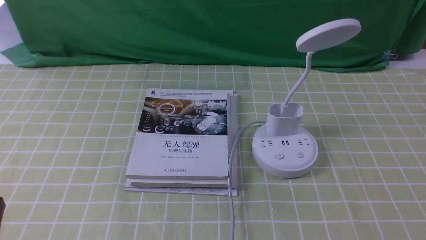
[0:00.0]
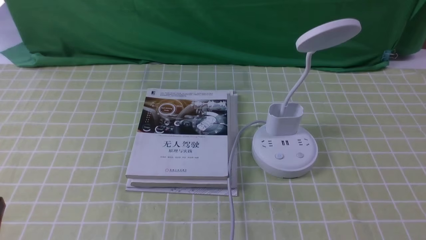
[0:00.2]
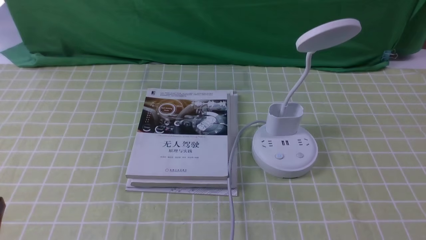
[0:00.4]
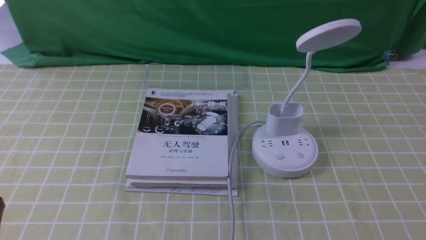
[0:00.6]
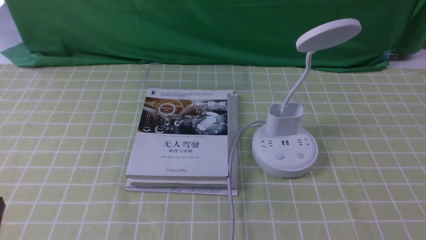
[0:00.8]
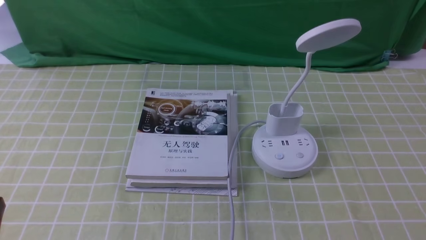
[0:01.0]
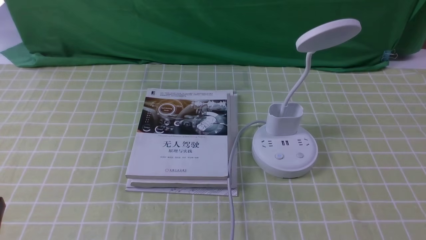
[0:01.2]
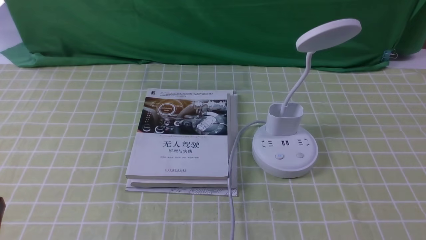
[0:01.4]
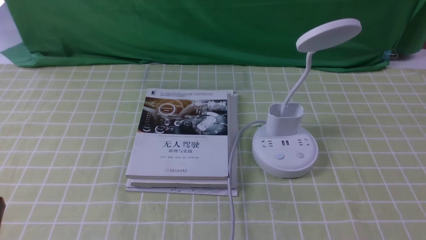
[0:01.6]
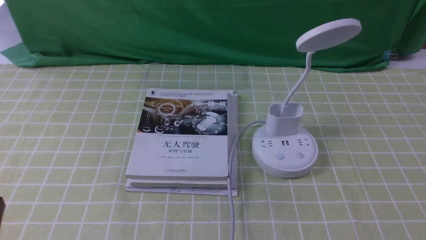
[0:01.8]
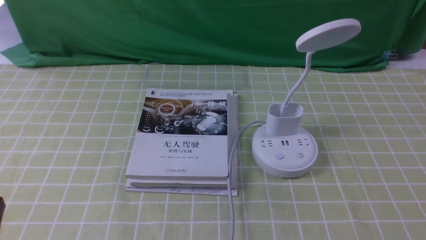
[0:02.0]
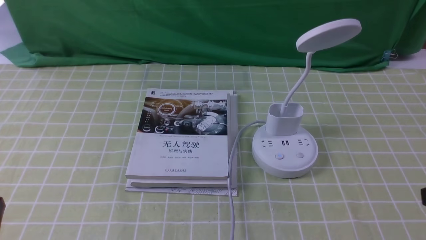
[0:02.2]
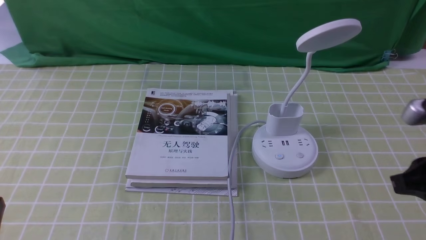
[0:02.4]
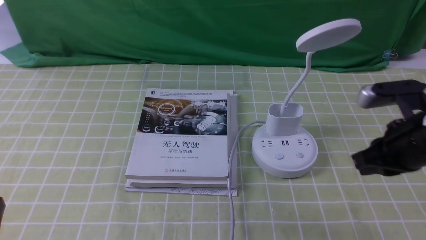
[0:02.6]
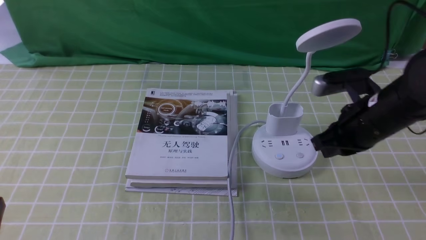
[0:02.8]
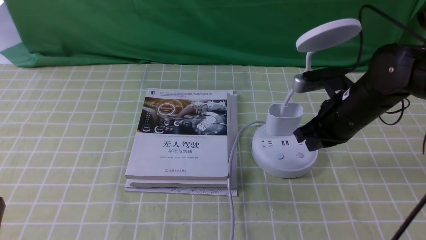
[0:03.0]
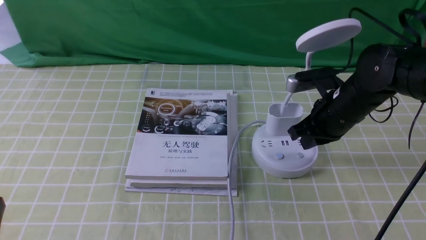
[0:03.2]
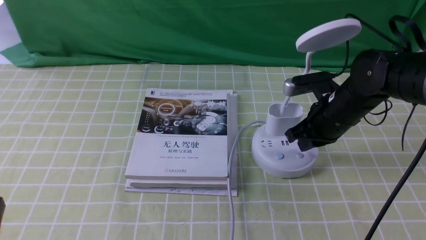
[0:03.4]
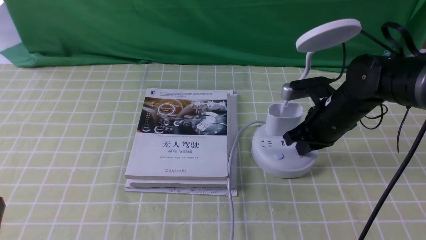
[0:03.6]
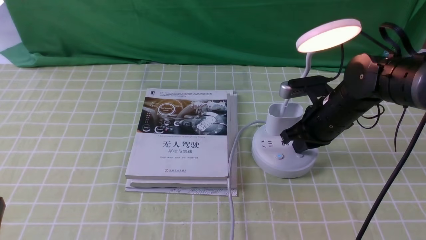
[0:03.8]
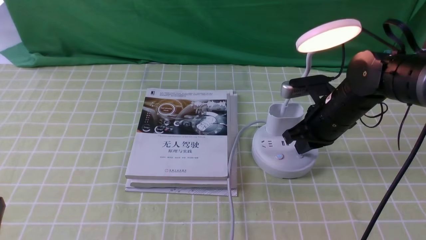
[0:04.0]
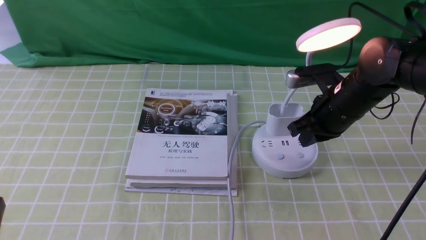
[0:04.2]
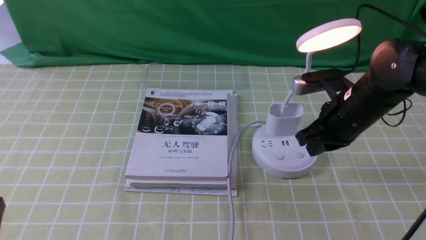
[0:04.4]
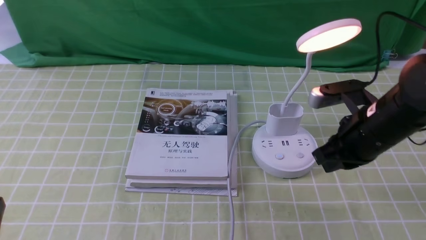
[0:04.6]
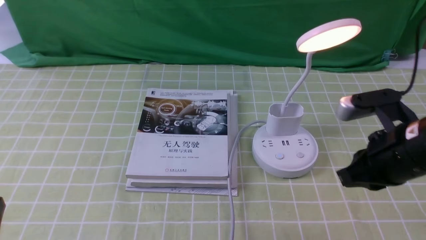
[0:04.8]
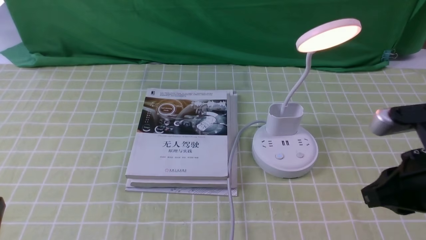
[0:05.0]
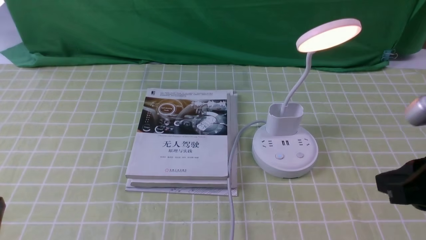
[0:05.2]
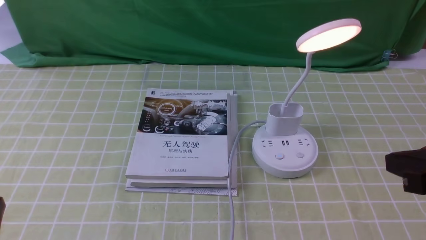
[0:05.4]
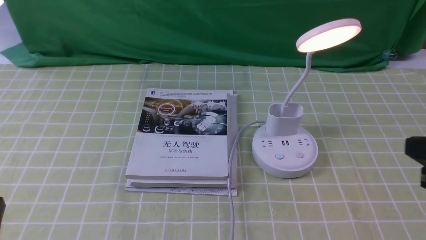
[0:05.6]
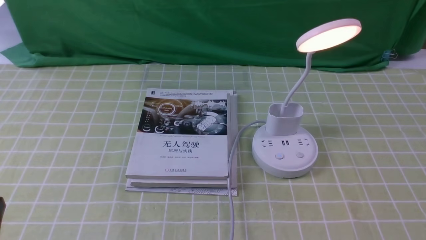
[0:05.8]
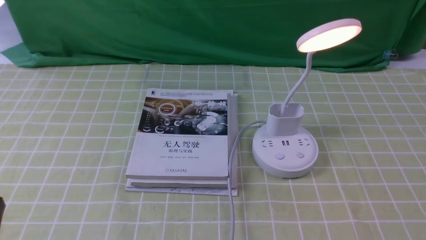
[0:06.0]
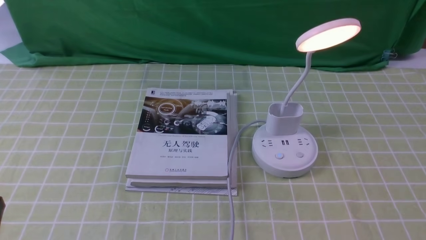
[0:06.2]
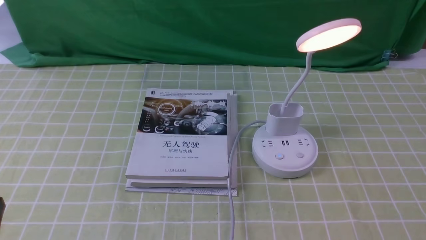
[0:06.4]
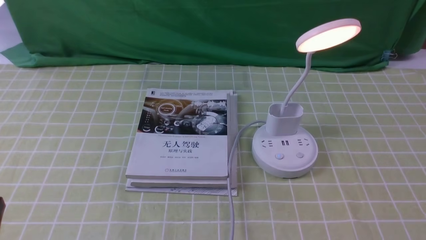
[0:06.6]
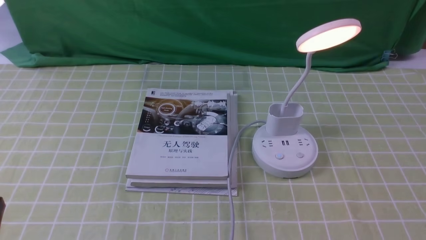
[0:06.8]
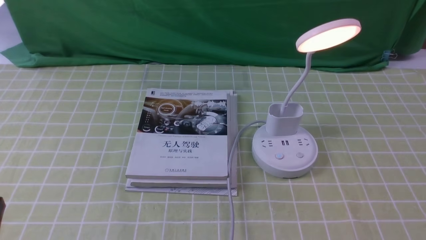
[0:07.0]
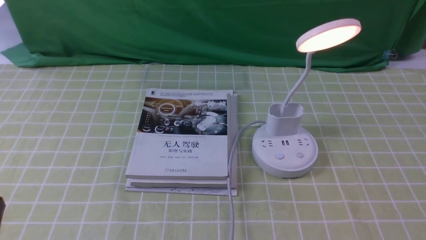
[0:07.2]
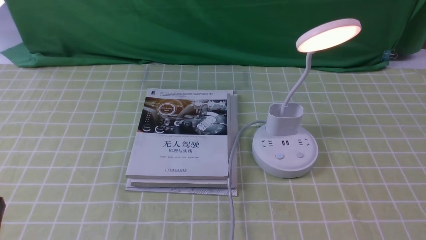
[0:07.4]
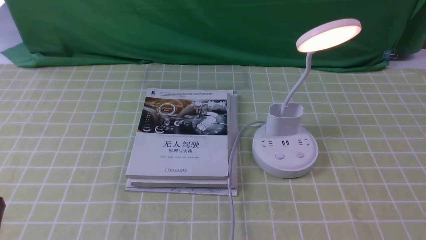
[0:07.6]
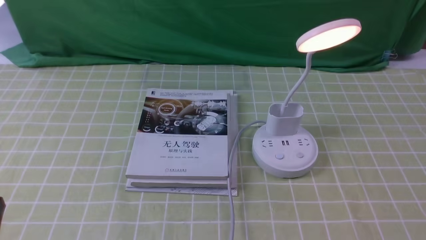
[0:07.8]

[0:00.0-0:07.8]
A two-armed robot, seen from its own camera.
Step, 0:00.0 to 0:04.0: use the right arm to press the button switch on the lamp holder.
0:01.6 to 0:03.2: The right gripper heads forward and to the left, covering about 35 cm, and closes its fingers.
0:03.2 to 0:04.6: The right gripper is displaced backward by roughly 10 cm.
0:04.6 to 0:06.2: The right gripper moves backward and to the right, roughly 25 cm.

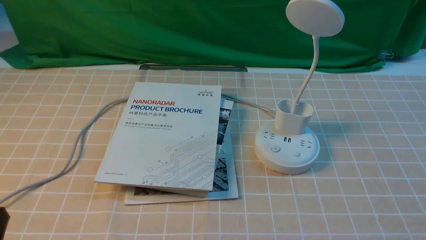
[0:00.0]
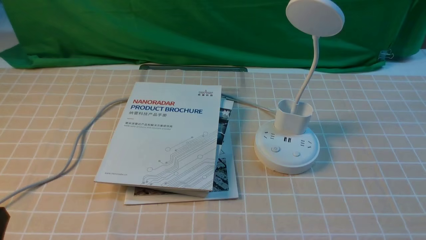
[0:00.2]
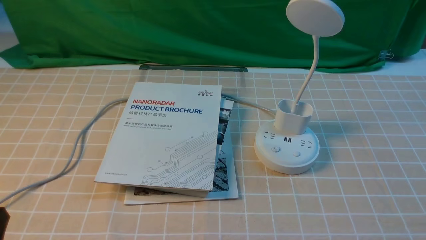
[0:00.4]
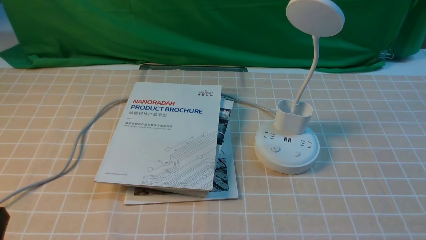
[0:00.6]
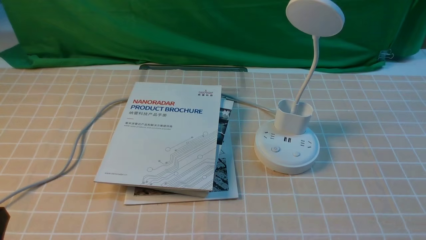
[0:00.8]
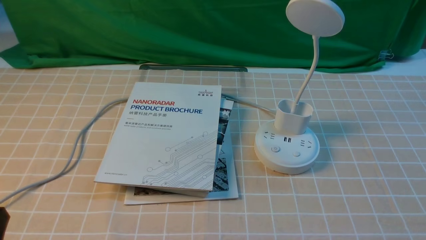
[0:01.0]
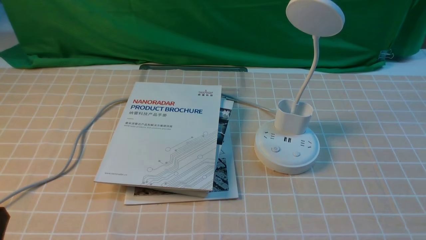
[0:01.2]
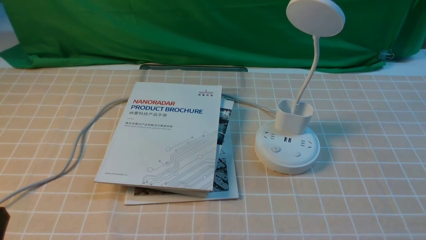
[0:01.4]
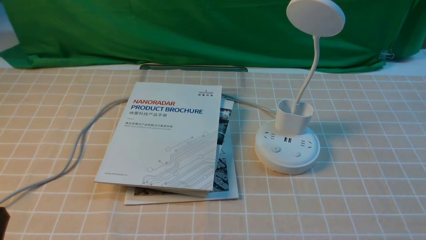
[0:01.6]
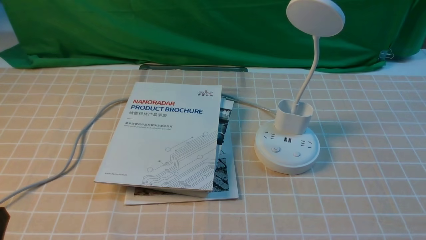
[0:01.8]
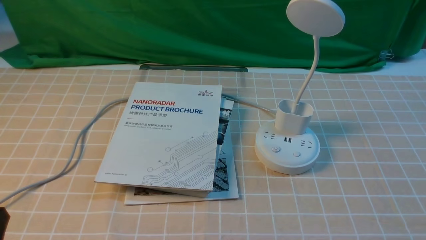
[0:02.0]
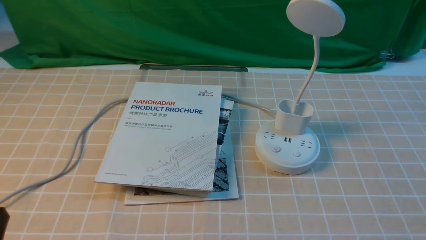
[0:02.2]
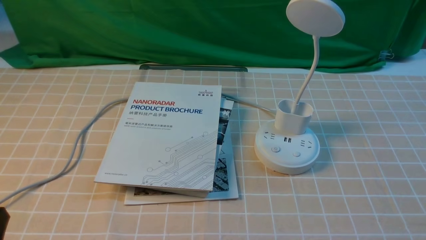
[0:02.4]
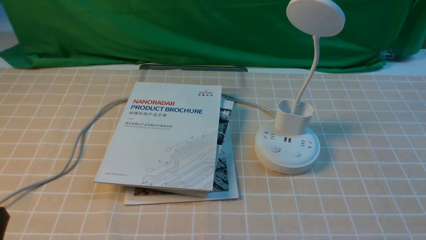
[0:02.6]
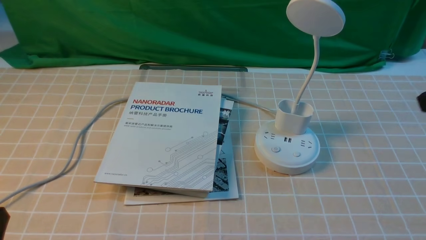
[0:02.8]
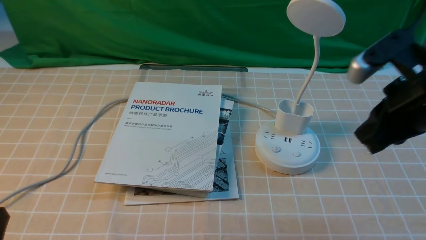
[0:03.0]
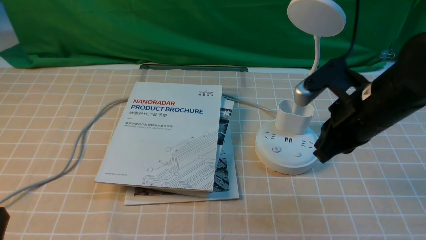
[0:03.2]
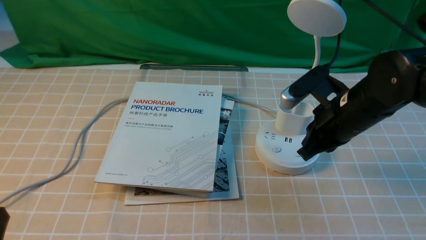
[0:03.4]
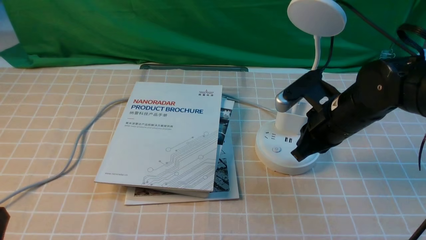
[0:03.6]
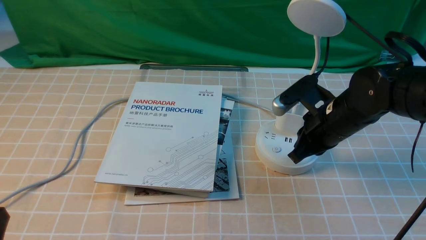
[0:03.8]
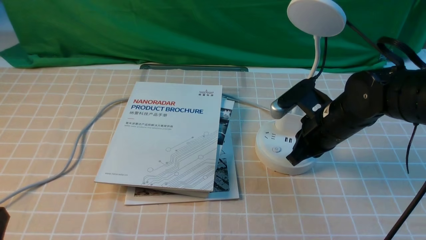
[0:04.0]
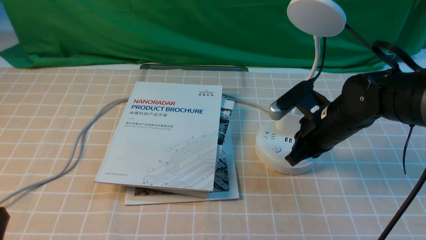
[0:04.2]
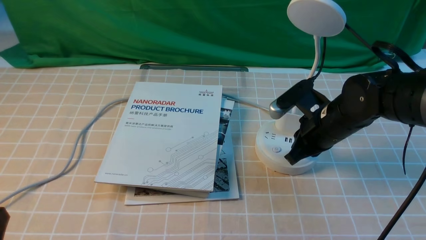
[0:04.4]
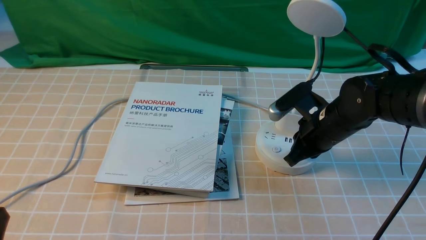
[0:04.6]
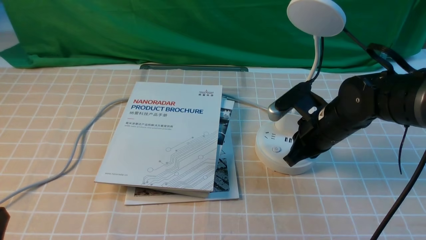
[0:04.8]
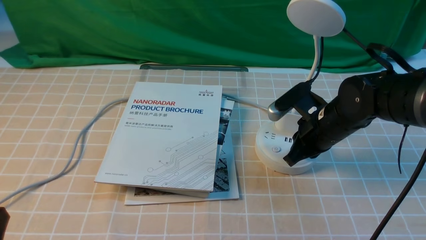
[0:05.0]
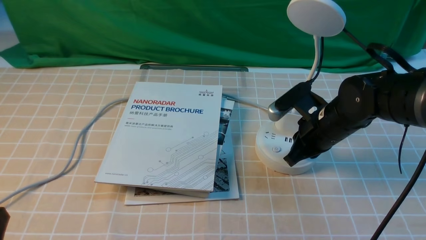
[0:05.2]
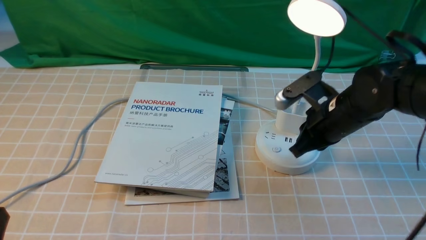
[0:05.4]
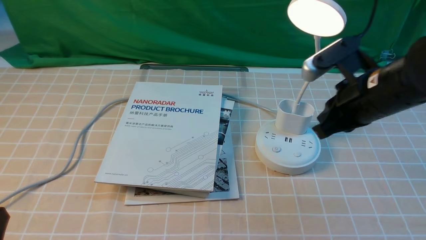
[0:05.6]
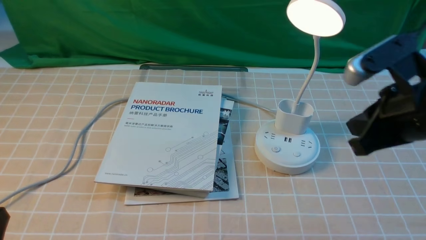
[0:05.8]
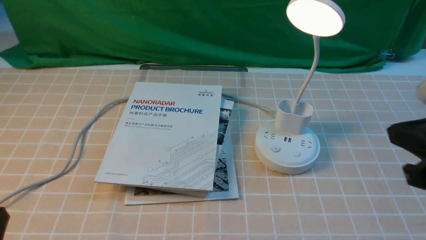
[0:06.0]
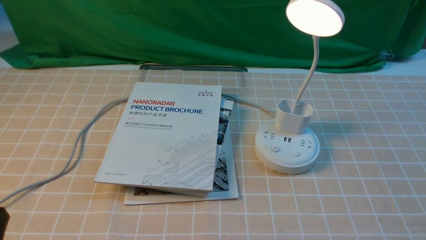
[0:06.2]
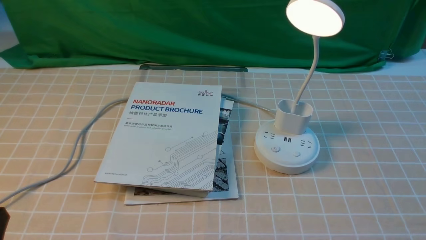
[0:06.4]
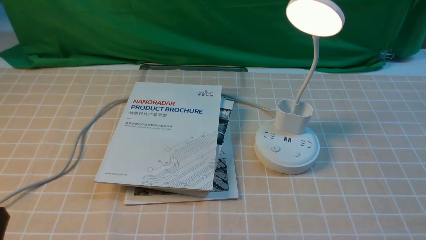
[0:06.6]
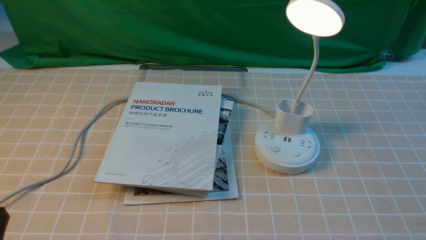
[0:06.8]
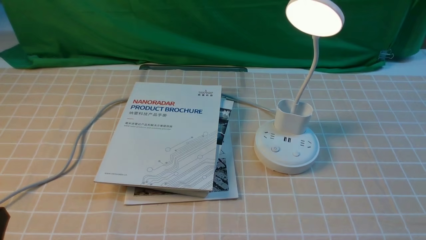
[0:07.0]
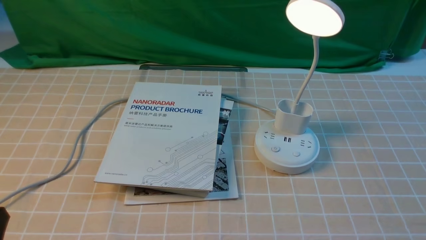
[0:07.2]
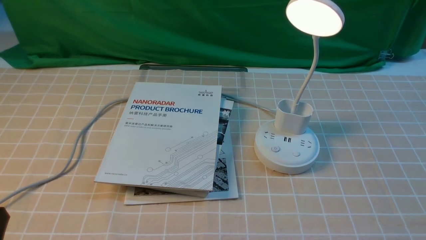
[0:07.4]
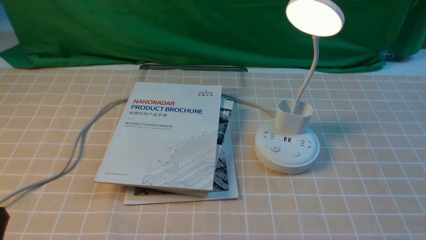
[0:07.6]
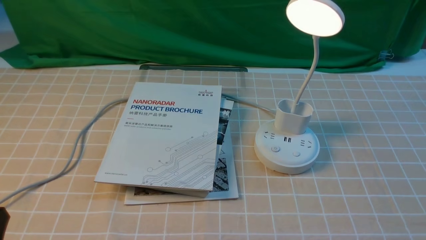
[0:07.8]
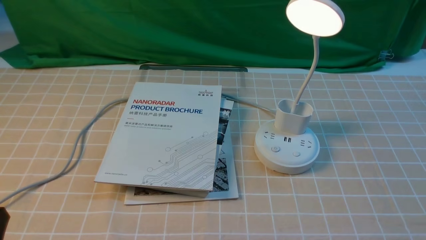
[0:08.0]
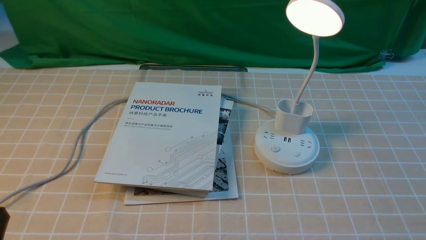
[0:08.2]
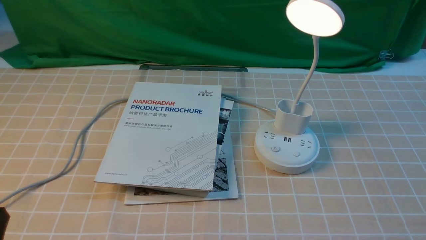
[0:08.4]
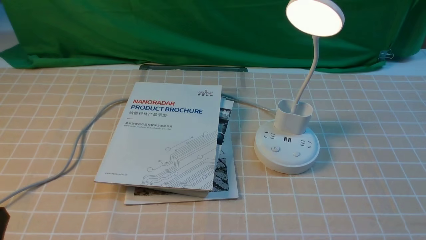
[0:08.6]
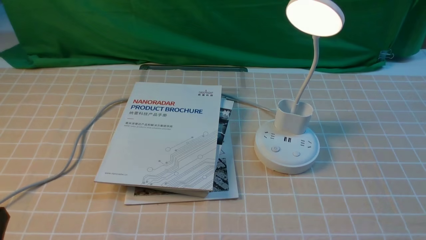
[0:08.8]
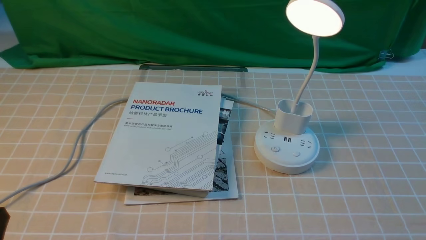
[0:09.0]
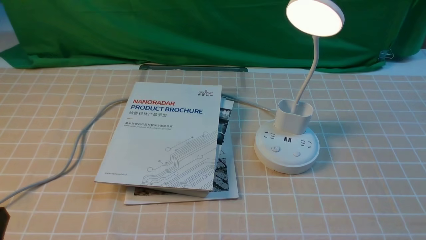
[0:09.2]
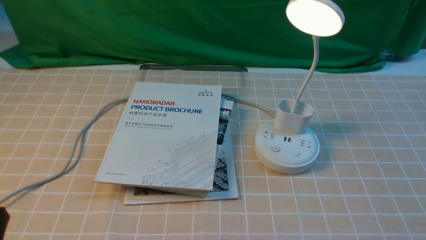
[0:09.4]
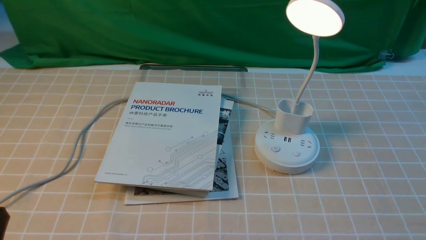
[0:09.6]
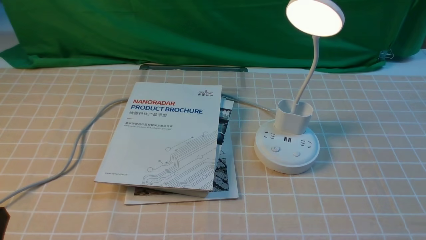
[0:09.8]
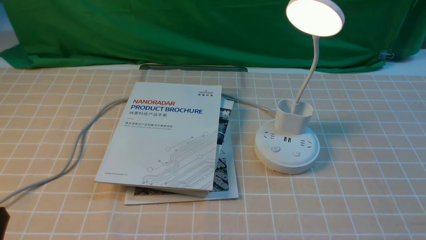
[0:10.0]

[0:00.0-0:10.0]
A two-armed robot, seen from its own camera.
Step, 0:00.0 to 0:05.6: use the right arm to press the button switch on the lamp holder.
0:02.8 to 0:04.2: The right gripper shifts approximately 30 cm forward, downward and to the left.
0:04.2 to 0:05.8: The right gripper heads upward and backward, covering some 10 cm.
0:05.8 to 0:07.2: The right gripper travels backward and to the right by approximately 25 cm.
0:08.6 to 0:10.0: Both grippers stay put.
